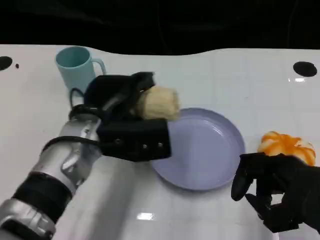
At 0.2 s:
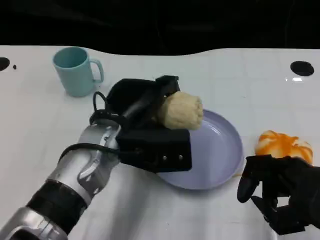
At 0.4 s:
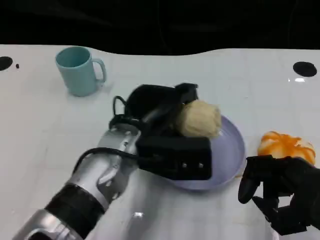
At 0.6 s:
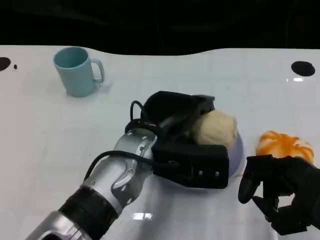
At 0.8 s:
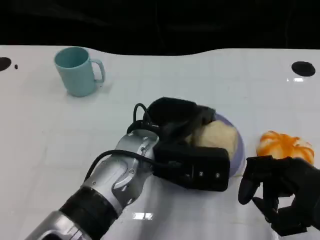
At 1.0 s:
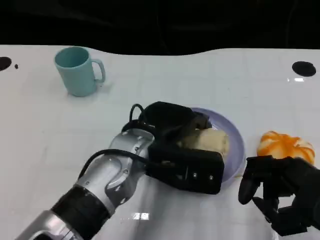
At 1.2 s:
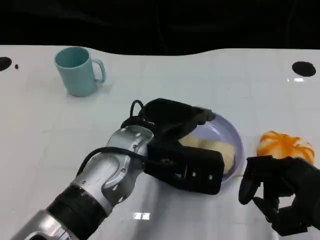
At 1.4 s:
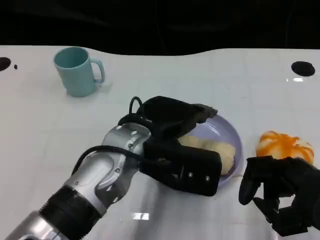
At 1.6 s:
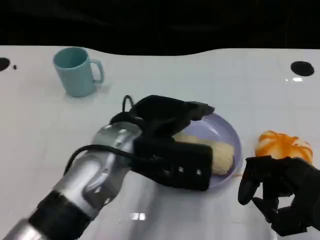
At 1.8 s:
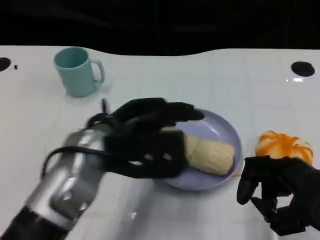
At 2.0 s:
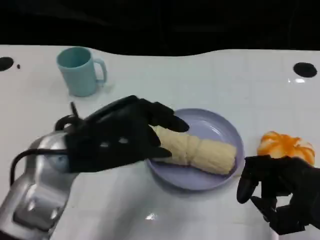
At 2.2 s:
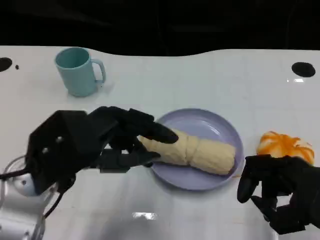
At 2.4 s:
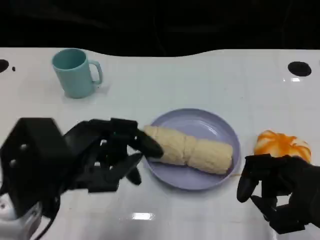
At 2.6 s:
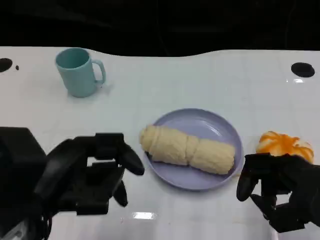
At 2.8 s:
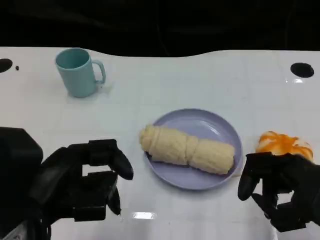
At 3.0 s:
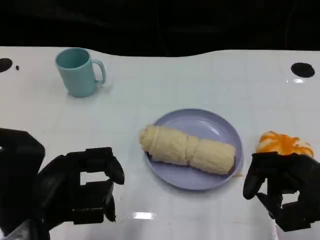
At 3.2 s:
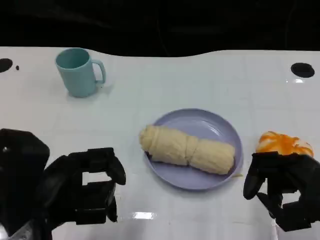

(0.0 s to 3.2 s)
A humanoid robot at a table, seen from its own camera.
Task of the whole recording: Grasp the towel on the left side of the plate with the left hand and place it into the plate.
0.0 s - 1.6 s: The left hand ends up roughly 5 cm from where it was.
1.6 s - 3.2 s: The left hand moves to the left and backward, roughly 15 cm.

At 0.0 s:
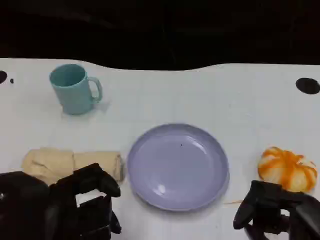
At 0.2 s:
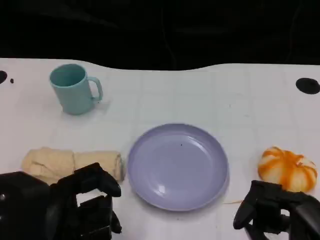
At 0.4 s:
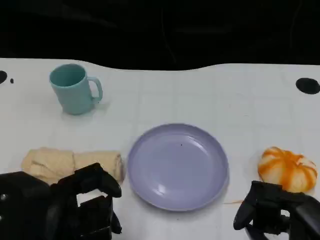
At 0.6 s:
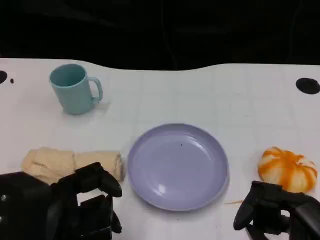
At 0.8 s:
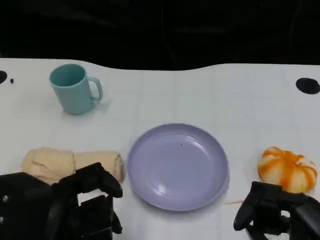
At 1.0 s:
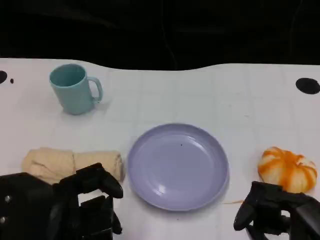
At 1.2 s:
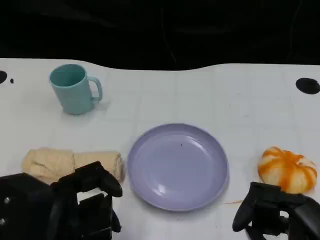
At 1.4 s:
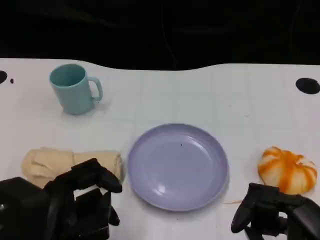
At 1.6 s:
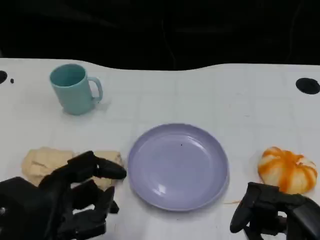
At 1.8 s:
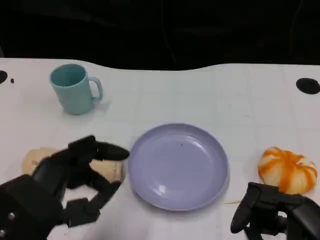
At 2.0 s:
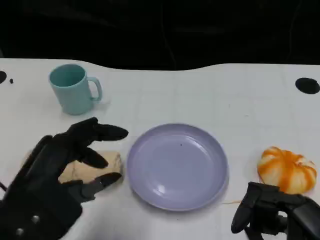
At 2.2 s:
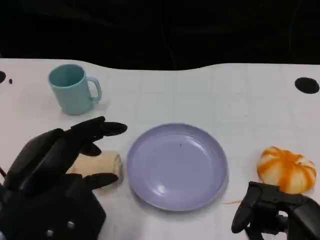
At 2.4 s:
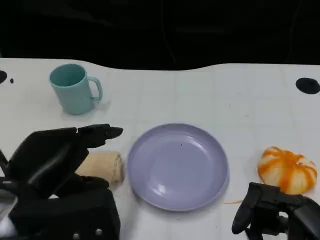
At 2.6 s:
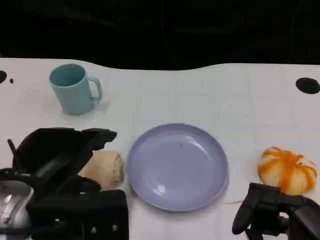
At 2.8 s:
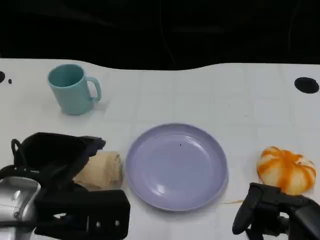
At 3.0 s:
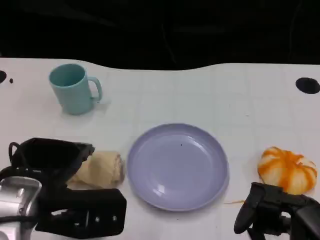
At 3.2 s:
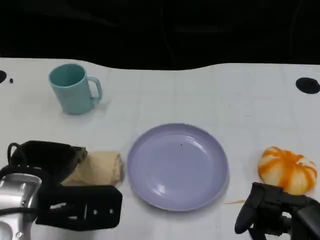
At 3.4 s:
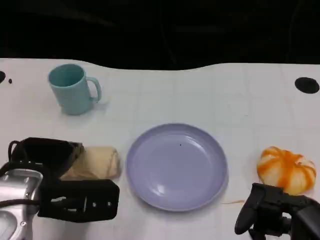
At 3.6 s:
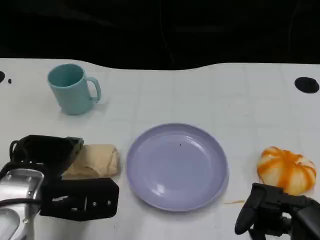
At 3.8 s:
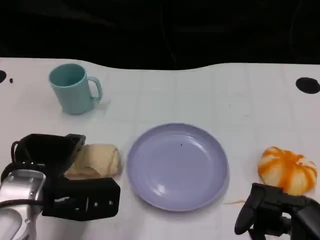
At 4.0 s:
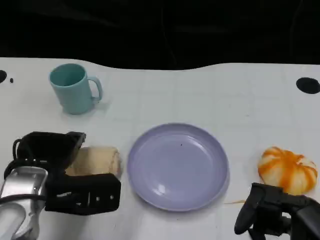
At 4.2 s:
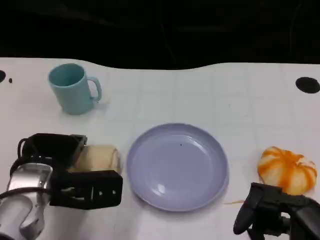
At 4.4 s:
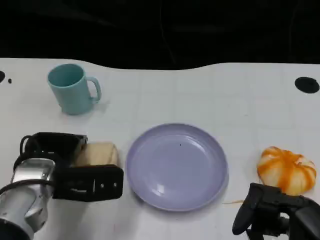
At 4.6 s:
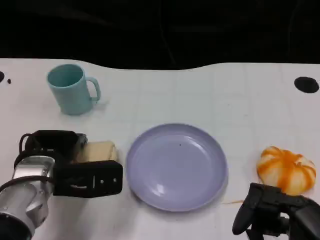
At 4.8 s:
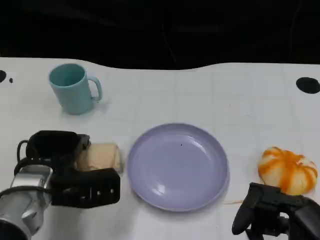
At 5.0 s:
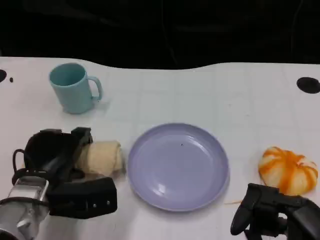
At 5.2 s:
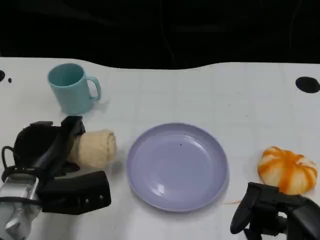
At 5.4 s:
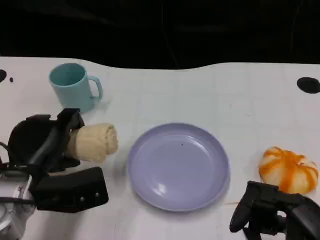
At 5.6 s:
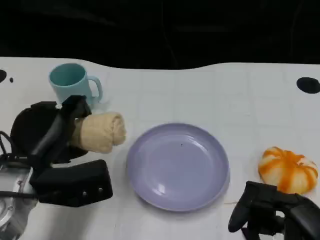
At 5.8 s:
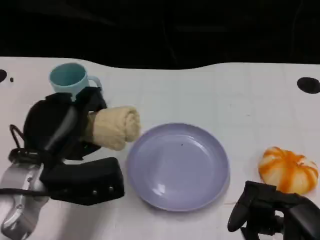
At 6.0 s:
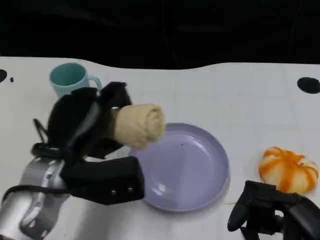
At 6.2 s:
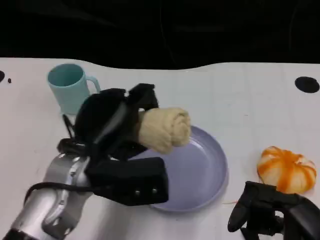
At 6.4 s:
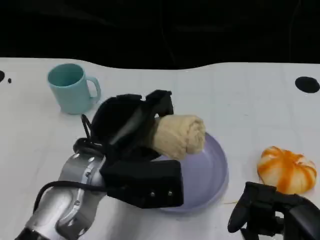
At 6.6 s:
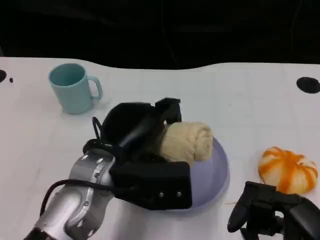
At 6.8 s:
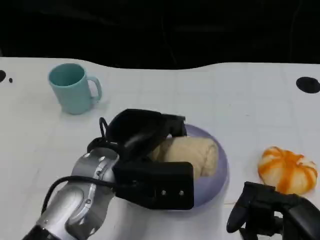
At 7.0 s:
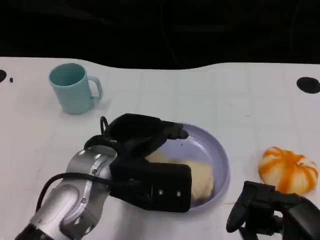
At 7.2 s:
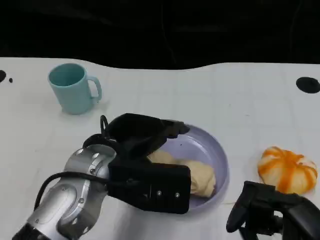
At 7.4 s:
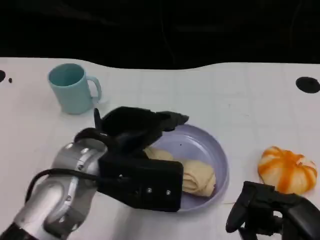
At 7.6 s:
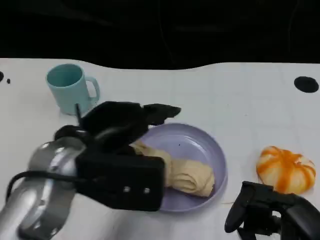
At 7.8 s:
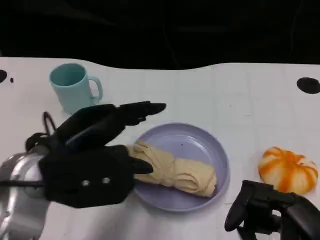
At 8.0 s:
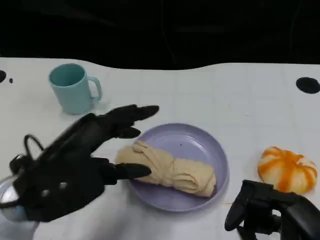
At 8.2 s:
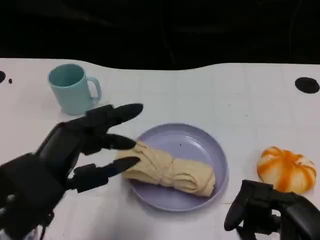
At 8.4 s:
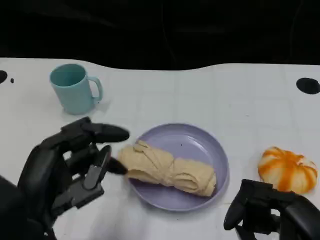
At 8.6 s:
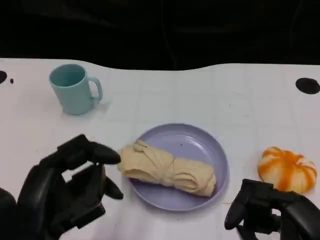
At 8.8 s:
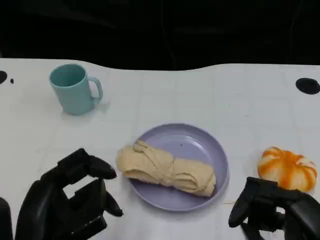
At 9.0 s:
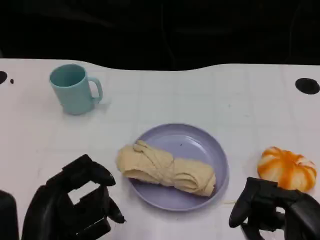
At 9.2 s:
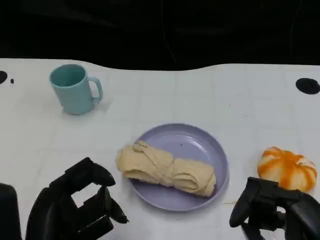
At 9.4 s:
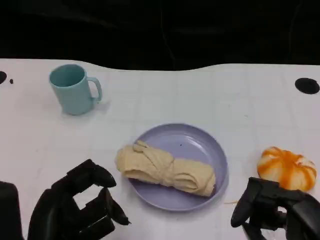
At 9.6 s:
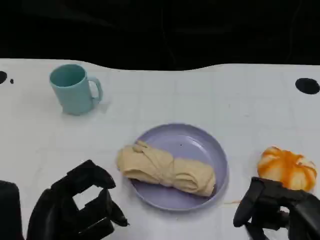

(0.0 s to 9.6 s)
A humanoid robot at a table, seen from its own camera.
Task of the whole recording: Grasp the towel on the left side of the plate with the left hand and place it into the plate.
0.0 s - 1.6 s: The hands stay close to where they were, moving slightly.
1.6 s - 3.2 s: The left hand moves forward, approximately 10 cm.
3.2 s - 4.8 s: The left hand heads downward, covering some 5 cm.
4.8 s - 6.4 s: The left hand is displaced to the right and upward by about 10 cm.
6.4 s - 8.0 s: The left hand shifts about 10 cm to the left and backward.
8.0 s - 9.6 s: The left hand travels backward by approximately 5 cm.

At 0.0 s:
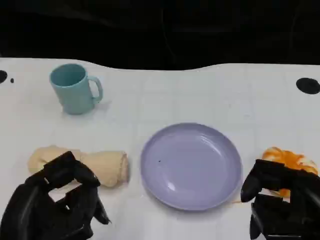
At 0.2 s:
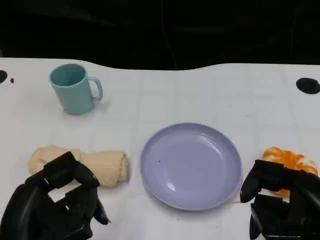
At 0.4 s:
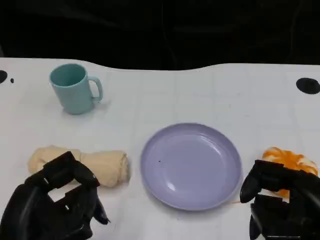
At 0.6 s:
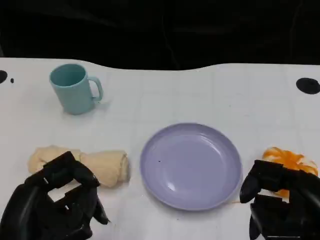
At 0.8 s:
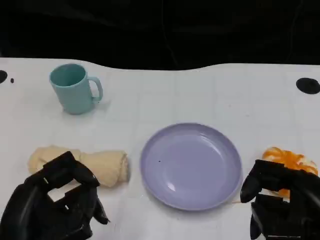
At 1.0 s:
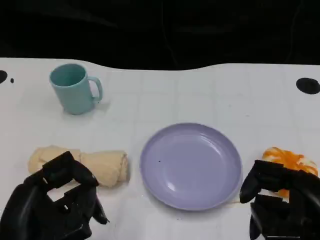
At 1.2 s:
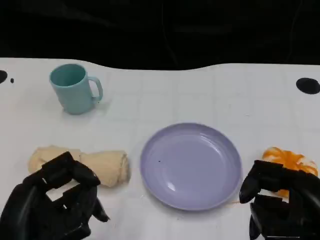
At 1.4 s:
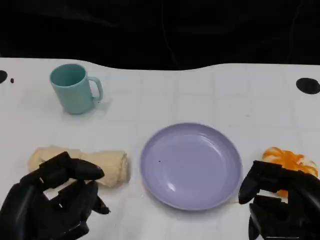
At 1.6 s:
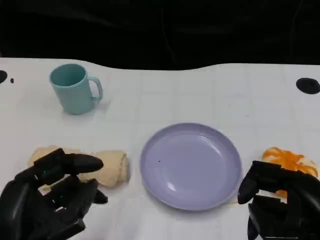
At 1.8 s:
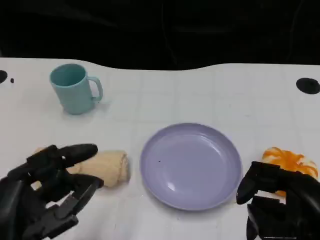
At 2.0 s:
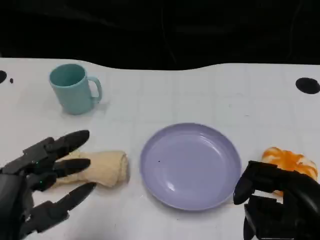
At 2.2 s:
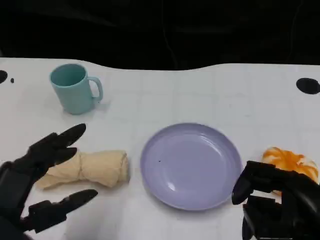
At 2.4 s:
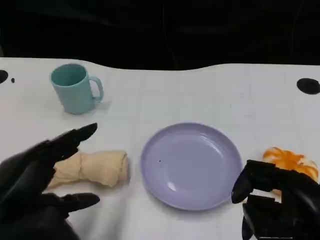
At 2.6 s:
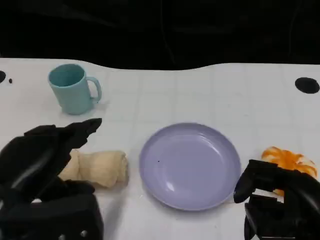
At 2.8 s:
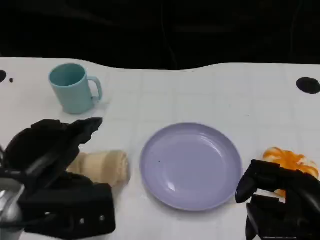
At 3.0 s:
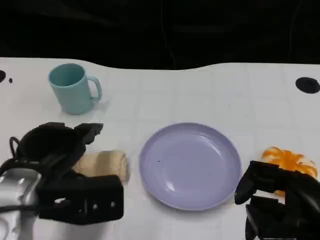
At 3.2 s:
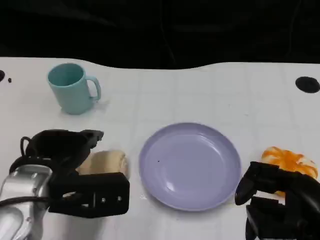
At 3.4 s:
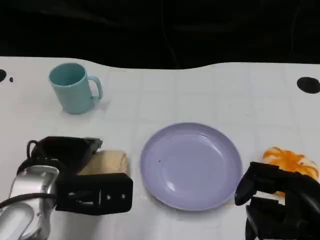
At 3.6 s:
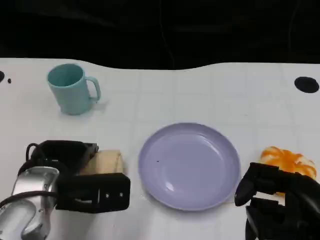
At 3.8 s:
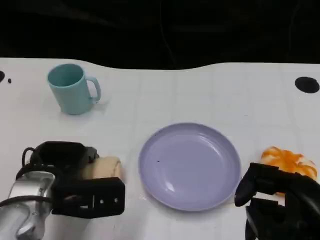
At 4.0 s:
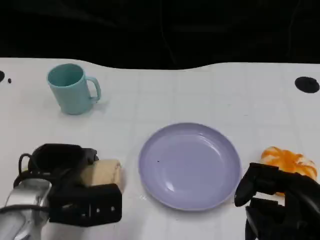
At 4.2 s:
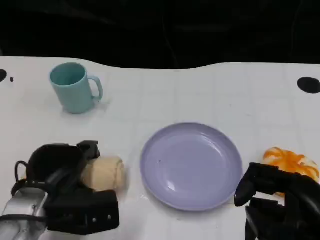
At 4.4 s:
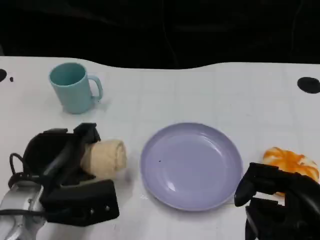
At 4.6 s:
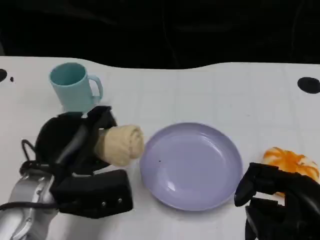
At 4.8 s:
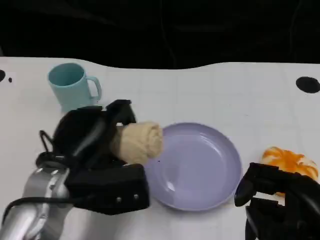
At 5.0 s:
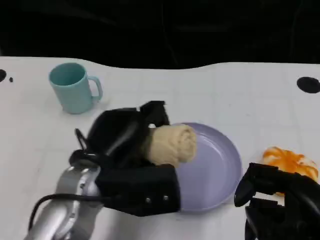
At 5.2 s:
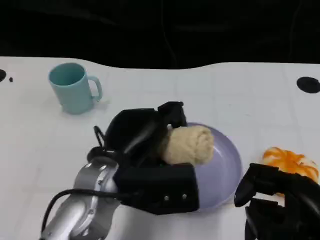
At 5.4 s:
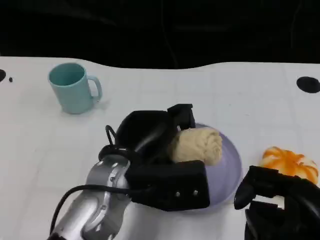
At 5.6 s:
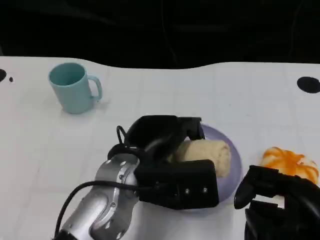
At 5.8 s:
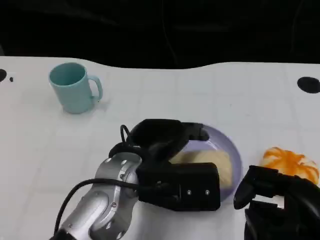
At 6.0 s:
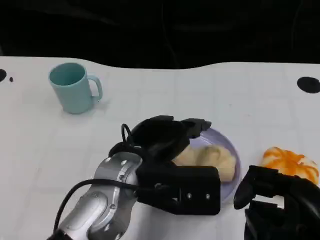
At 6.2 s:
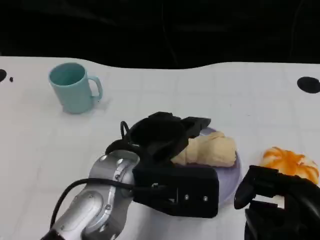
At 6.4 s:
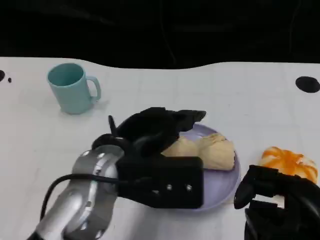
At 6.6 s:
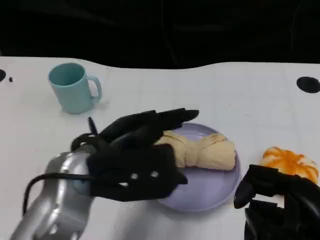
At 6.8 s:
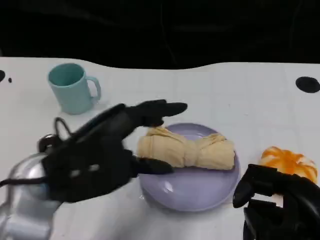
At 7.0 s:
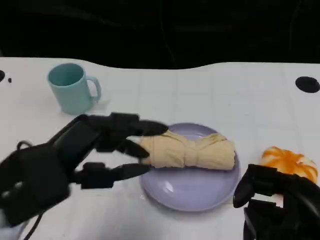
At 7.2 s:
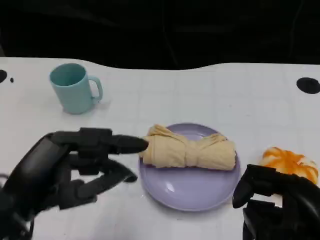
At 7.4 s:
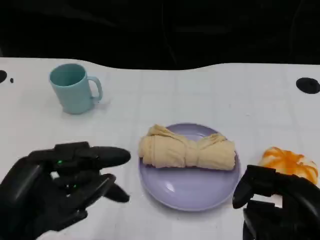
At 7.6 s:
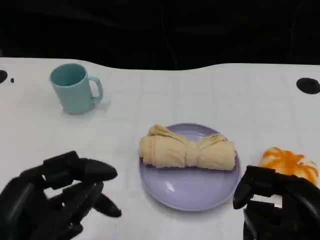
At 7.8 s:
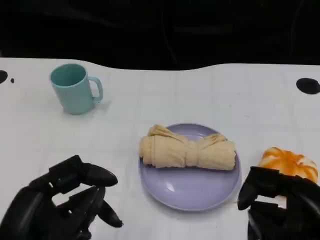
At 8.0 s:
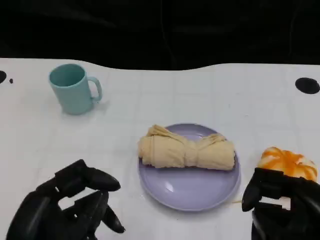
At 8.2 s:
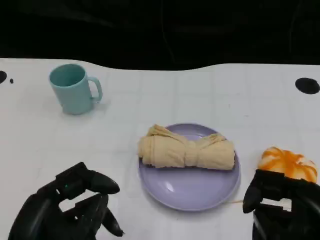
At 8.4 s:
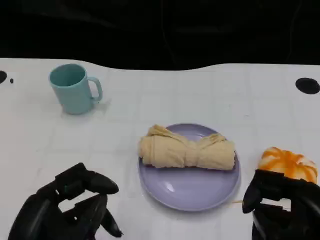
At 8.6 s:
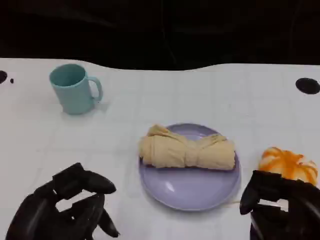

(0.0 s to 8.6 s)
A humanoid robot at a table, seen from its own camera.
Task of the whole recording: Grasp the towel on the left side of the plate with the left hand and place it into the plate.
0.0 s - 1.4 s: Neither hand changes place.
1.4 s - 2.8 s: The left hand is displaced forward by roughly 10 cm.
2.8 s - 4.4 s: The left hand shifts about 5 cm downward.
4.4 s - 5.8 s: The left hand goes approximately 15 cm to the right and upward.
5.8 s - 7.2 s: The left hand moves to the left and backward, approximately 15 cm.
7.2 s - 8.6 s: The left hand shifts by about 5 cm.
